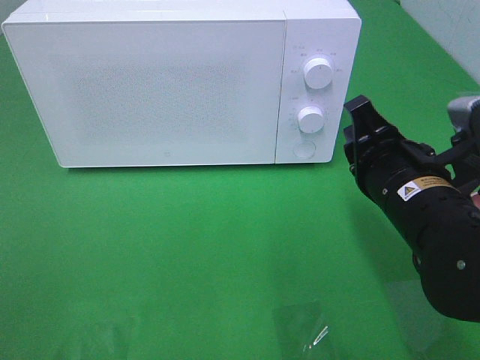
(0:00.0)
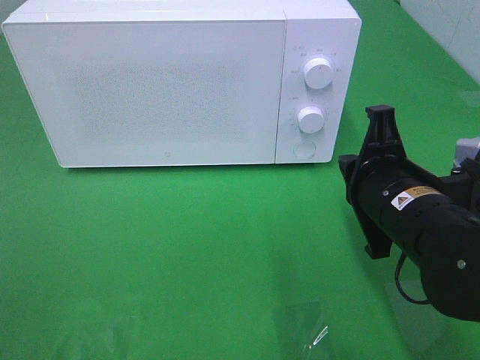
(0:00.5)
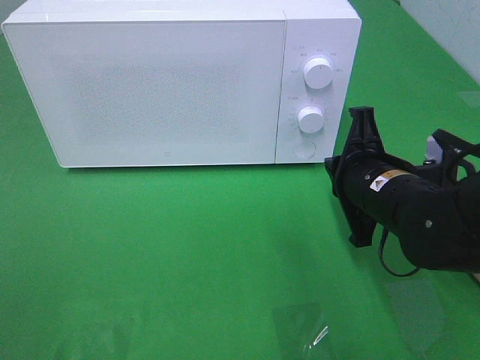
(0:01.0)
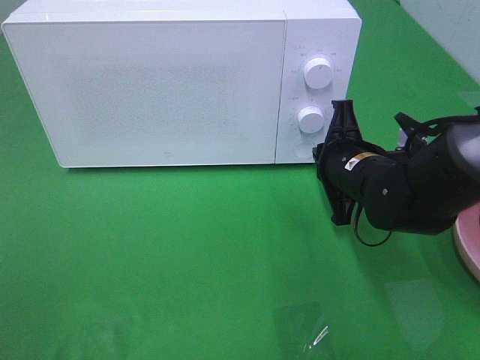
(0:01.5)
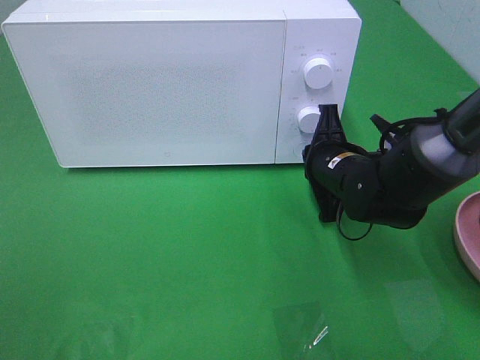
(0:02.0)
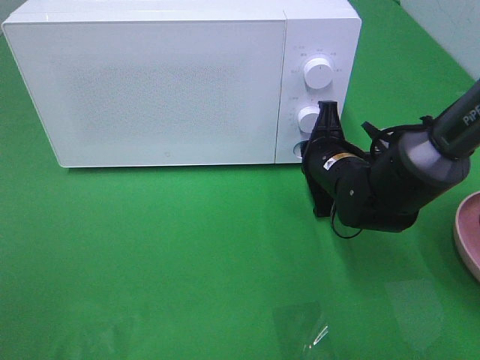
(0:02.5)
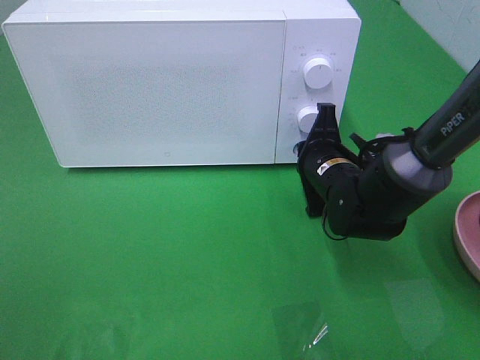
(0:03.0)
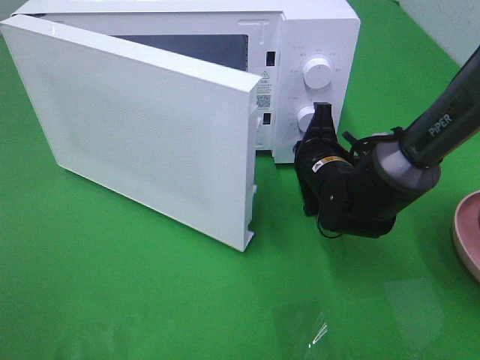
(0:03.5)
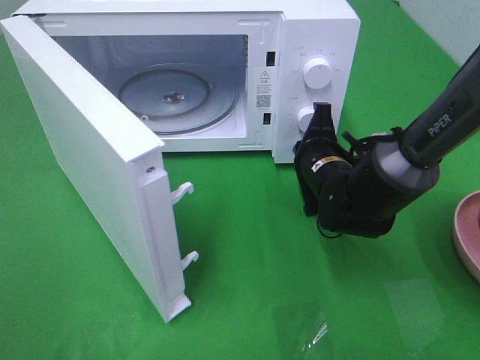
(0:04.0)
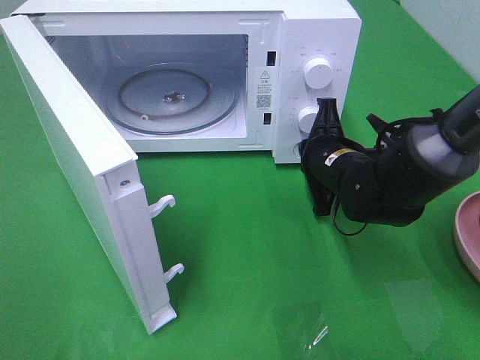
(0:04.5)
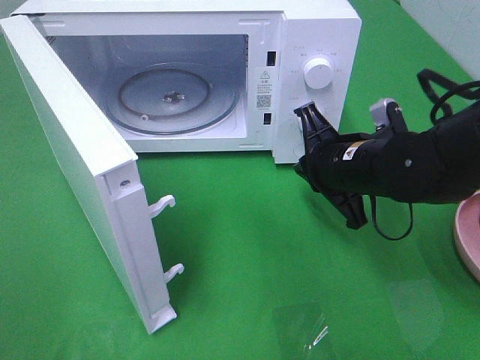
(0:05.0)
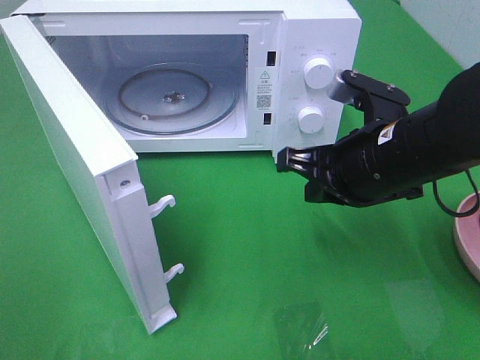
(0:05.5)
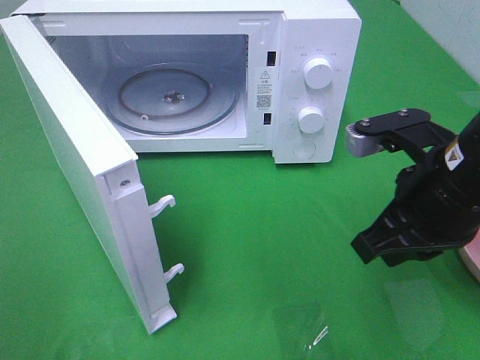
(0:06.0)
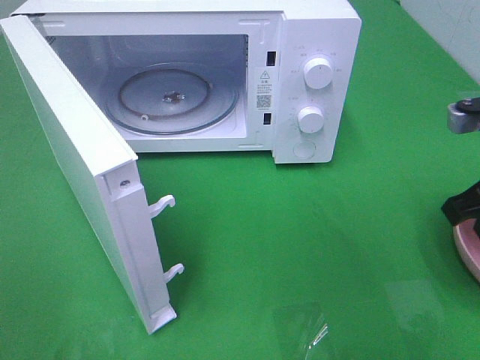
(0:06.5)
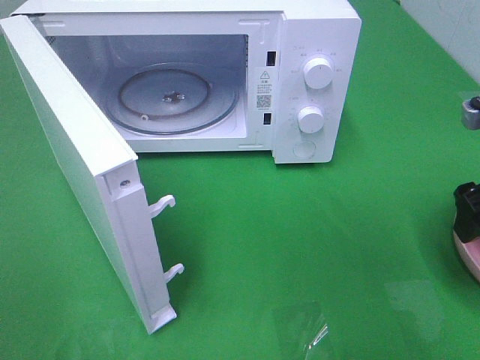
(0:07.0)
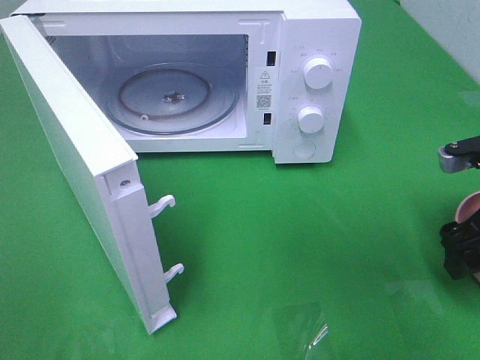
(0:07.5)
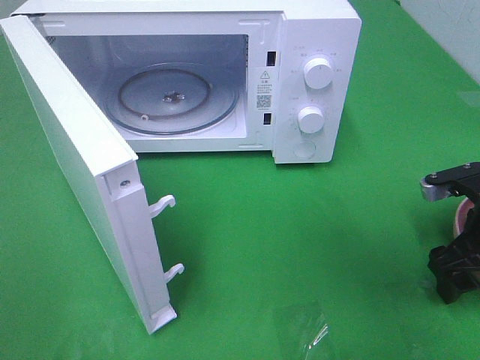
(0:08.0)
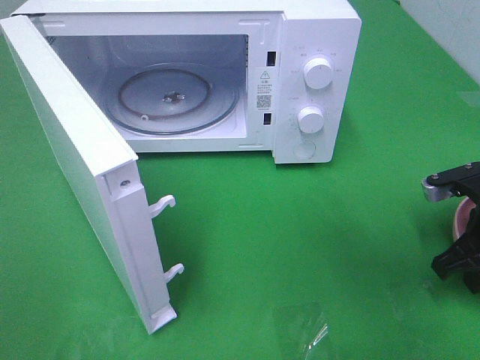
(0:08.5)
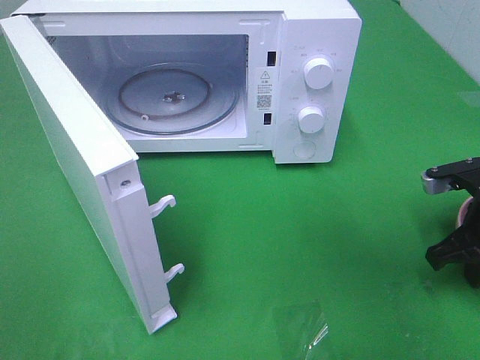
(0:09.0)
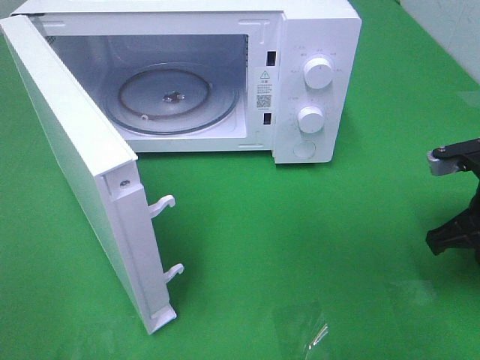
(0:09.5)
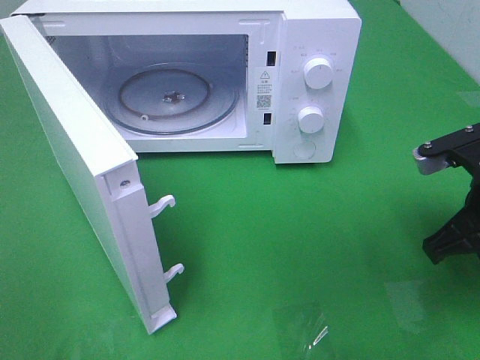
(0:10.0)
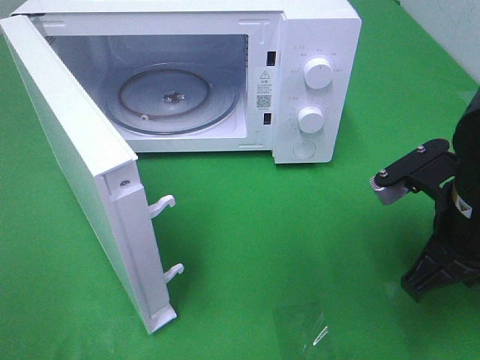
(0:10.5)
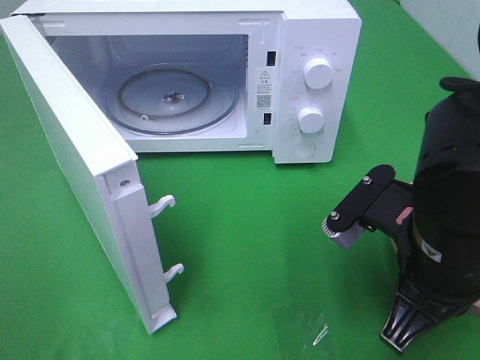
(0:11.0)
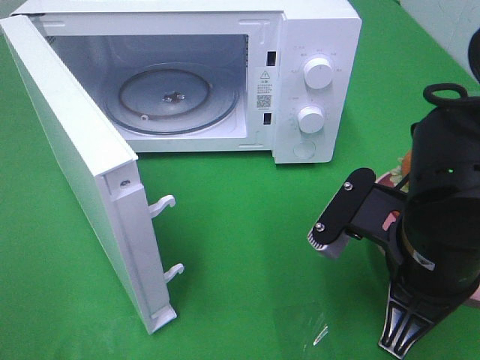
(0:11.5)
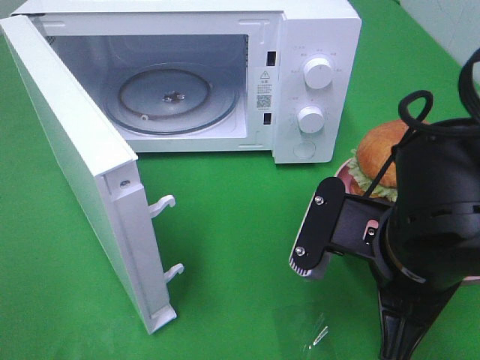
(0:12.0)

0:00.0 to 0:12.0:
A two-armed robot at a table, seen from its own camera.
Task of the whole recording: Heat the burger.
Step, 0:00.0 to 0:04.5: Right hand: press the switch.
Step, 0:05.0 to 0:09.0: Right hand: grab the plate with the hamburger.
0:00.0 to 0:02.0: The right gripper heads forward and downward, covering roughly 15 cm.
0:04.0 to 0:06.0: The right gripper shifts approximately 20 cm backward and upward.
0:06.0 to 0:08.0: The right gripper heads to the right and downward, covering approximately 15 cm, and opens its fingers.
0:08.0 to 0:10.0: The right gripper is displaced upward by some 5 cm, and closes up.
0:10.0 to 0:12.0: The right gripper goes some 15 cm to the left and backward.

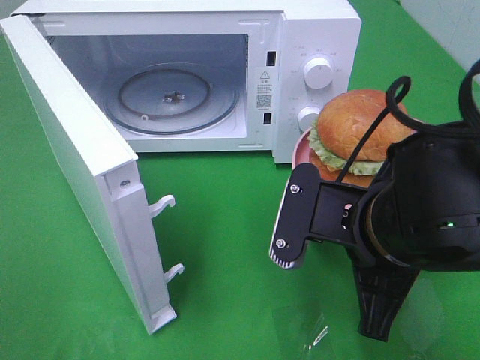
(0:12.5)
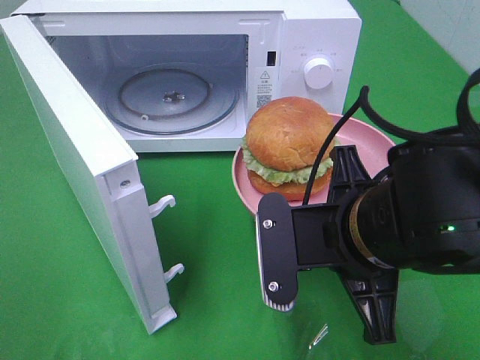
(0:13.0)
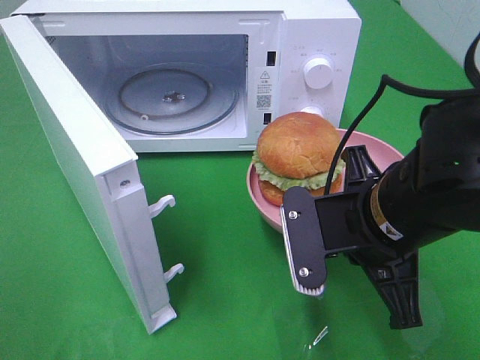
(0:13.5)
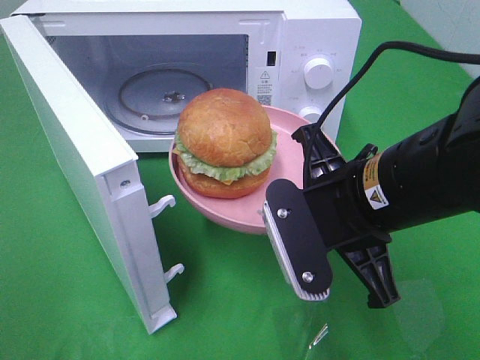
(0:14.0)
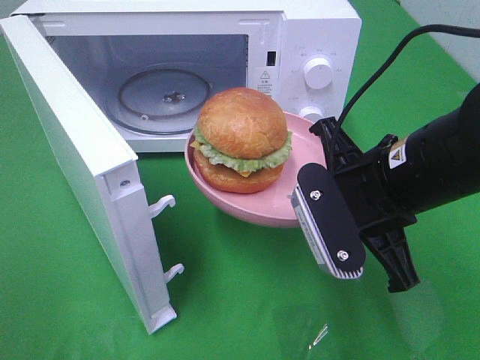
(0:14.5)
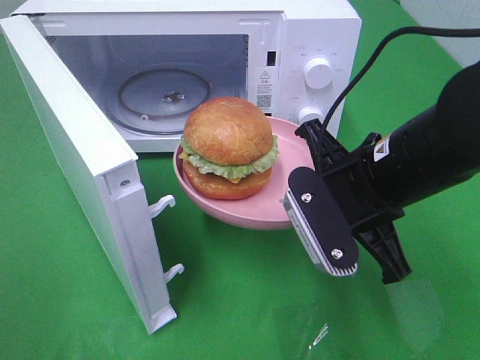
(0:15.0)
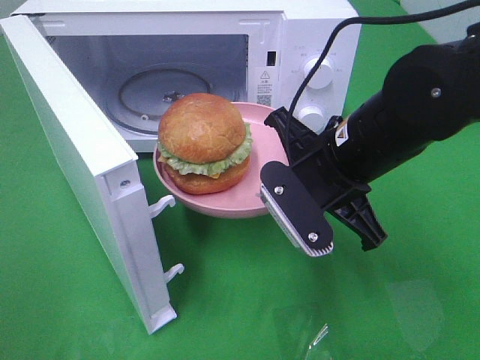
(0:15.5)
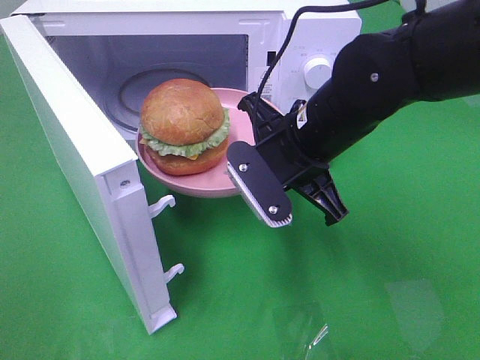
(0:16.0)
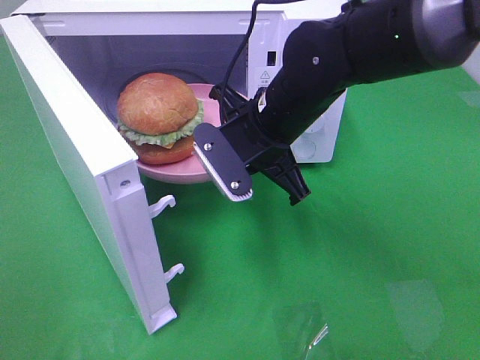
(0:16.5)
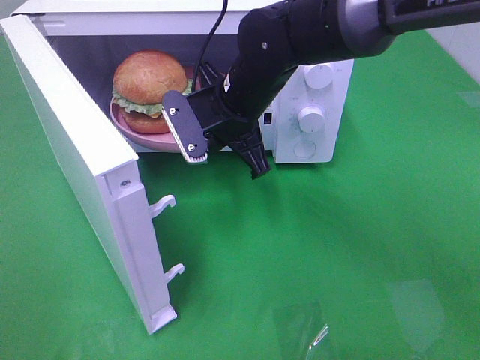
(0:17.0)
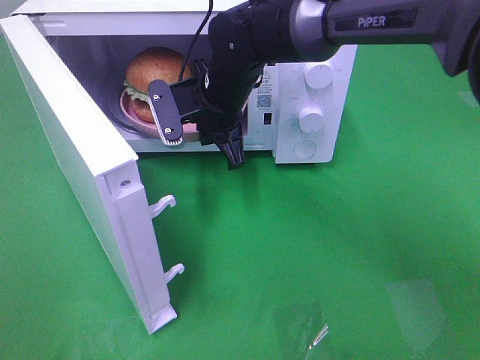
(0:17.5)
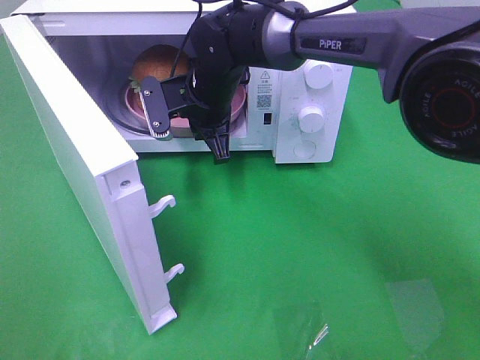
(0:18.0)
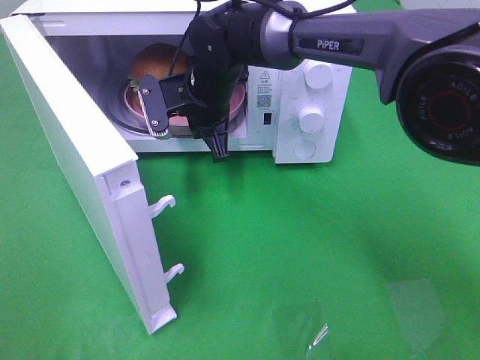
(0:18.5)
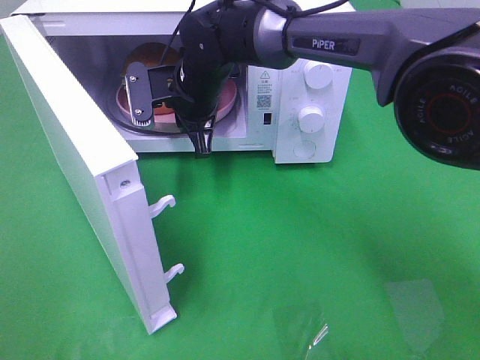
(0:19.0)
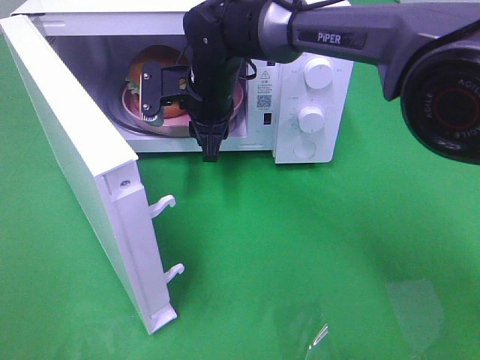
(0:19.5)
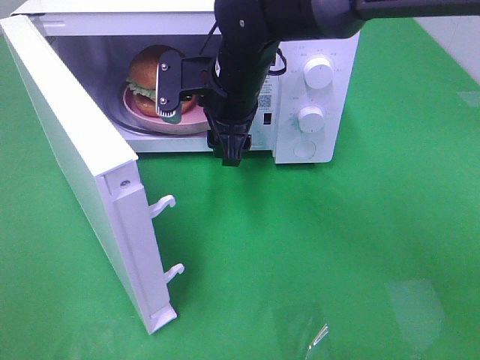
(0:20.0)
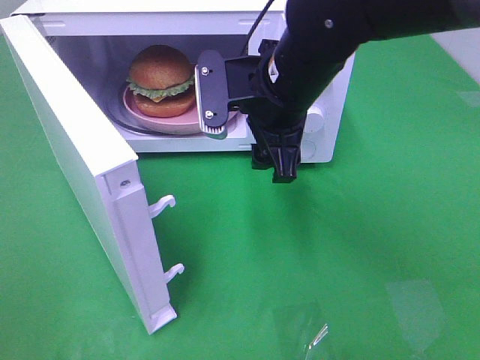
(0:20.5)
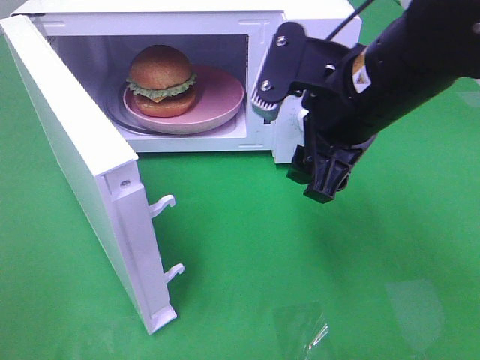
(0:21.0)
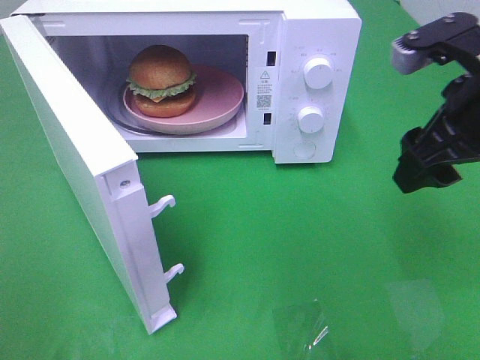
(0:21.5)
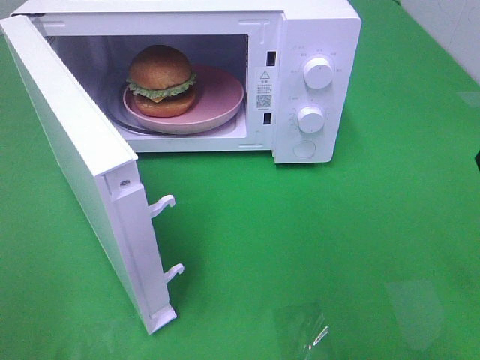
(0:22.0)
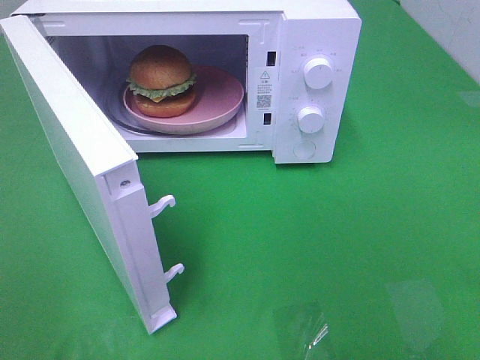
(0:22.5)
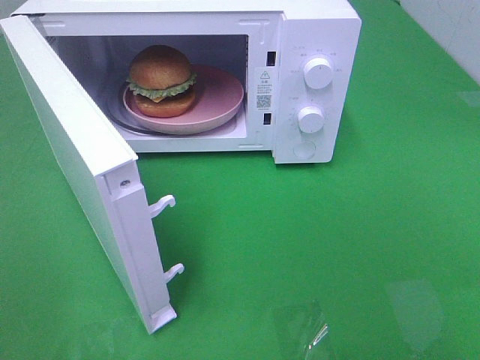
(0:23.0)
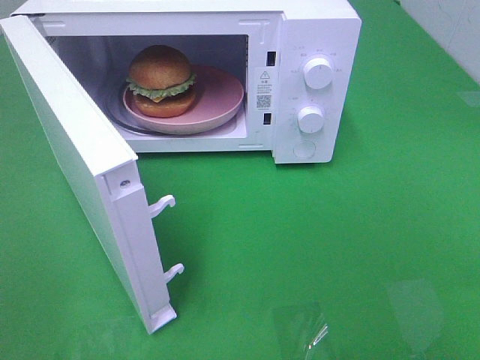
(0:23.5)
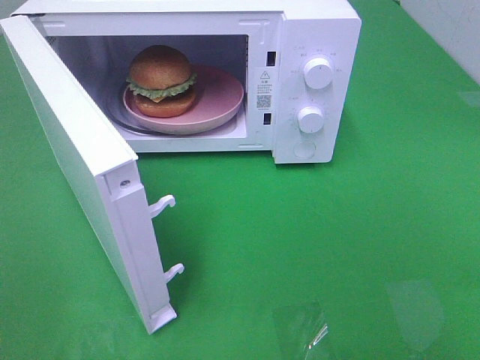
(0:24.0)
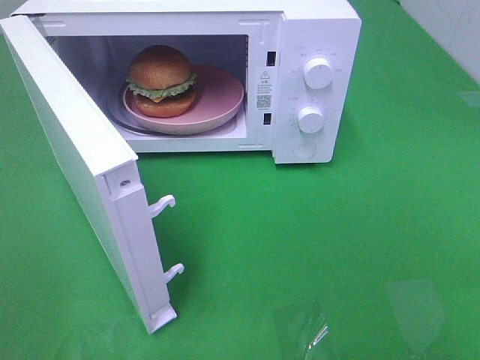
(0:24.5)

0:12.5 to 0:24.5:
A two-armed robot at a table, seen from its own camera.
Task of the whole recording: Heat the burger.
Step, 0:12.5 to 0:19.0: Right hand: place the plate in the microwave.
0:12.5 to 0:14.5: The right gripper moves some 5 cm.
0:14.5 to 0:16.5: The right gripper moves forward and to the left, some 15 cm.
0:16.5 to 0:18.5: The right gripper is displaced forward and to the left by roughly 15 cm.
0:18.5 to 0:20.5: The right gripper shifts some 15 cm backward, to the right and upward, and opens up.
0:20.5 to 0:22.5: The right gripper heads to the right, backward and upward, covering approximately 30 cm.

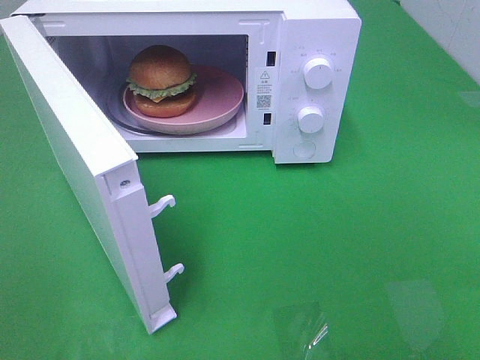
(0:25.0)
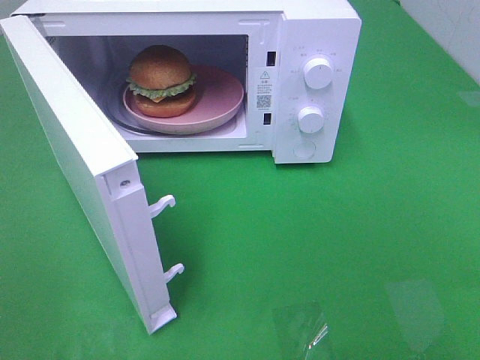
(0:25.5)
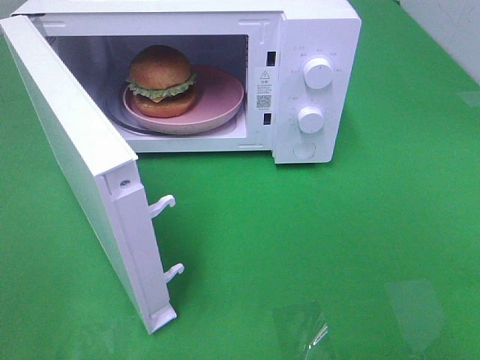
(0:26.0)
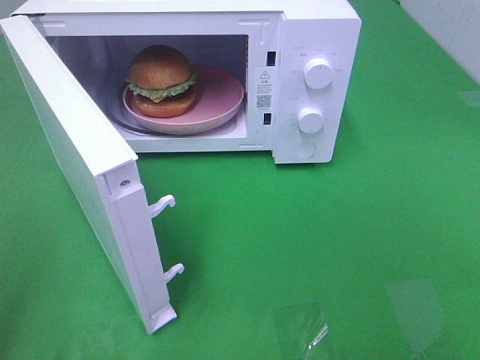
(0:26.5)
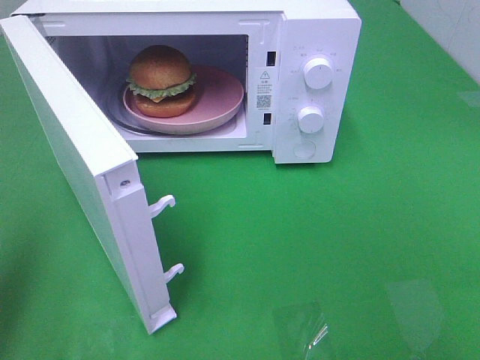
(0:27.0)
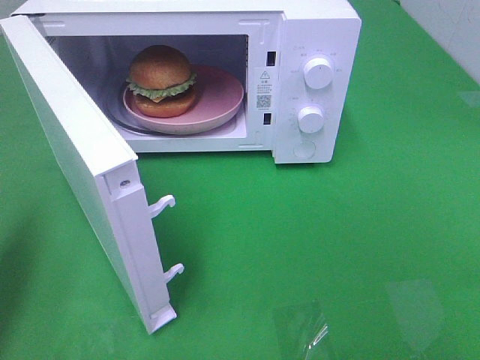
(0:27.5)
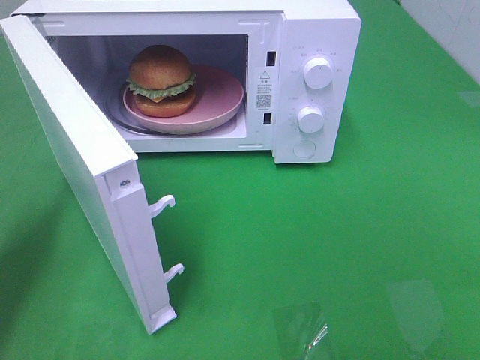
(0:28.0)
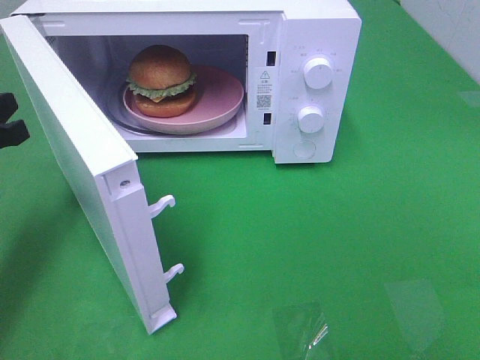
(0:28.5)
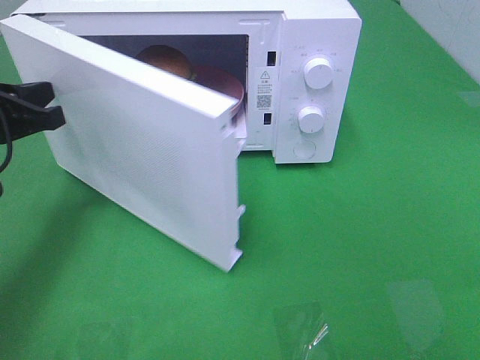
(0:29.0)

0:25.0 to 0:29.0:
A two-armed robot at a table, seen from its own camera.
Task of the whole recording: Heat the burger.
0:25.0 to 0:27.0: The left gripper shifts roughly 15 cm forward, and closes its fingers.
0:27.0 to 0:29.0: The left gripper moves forward and downward, about 20 cm.
